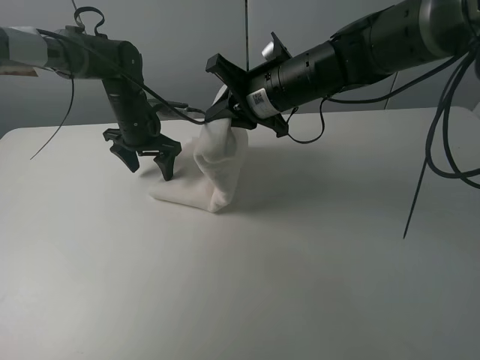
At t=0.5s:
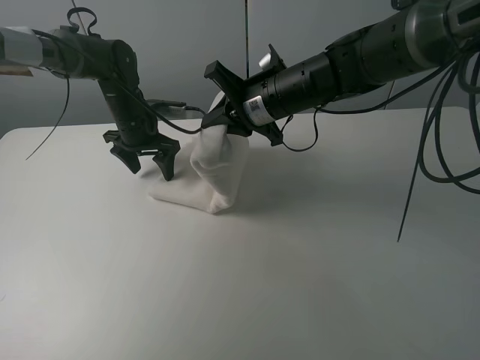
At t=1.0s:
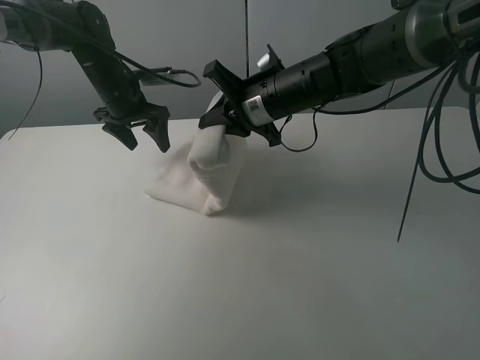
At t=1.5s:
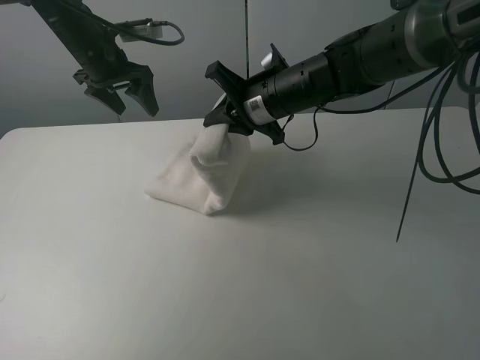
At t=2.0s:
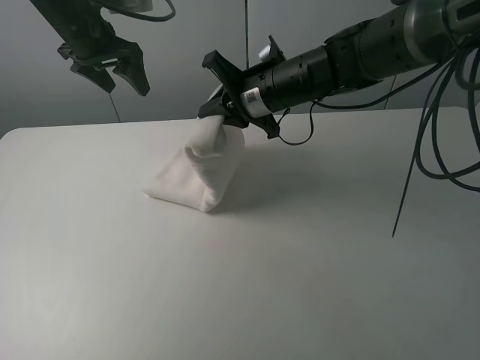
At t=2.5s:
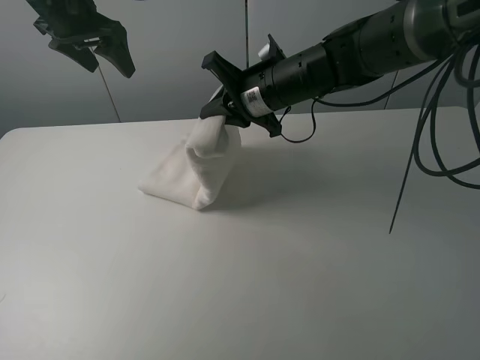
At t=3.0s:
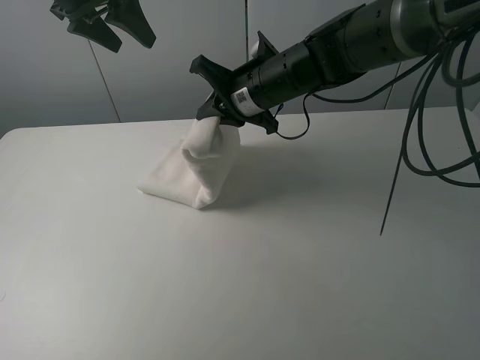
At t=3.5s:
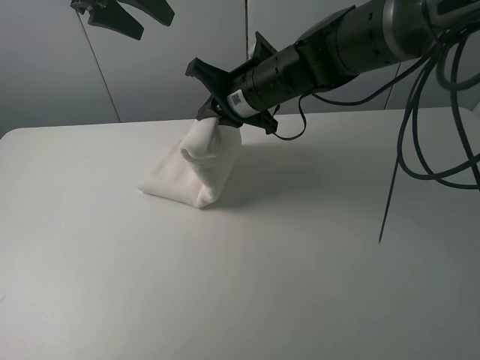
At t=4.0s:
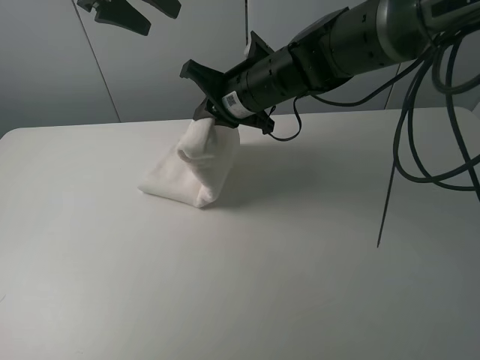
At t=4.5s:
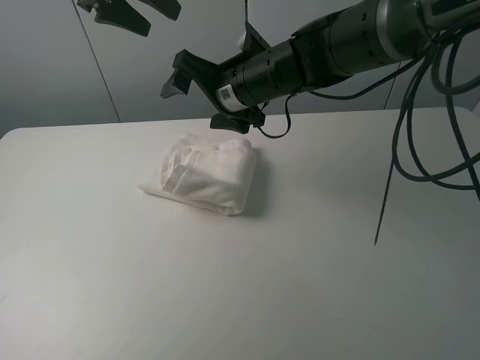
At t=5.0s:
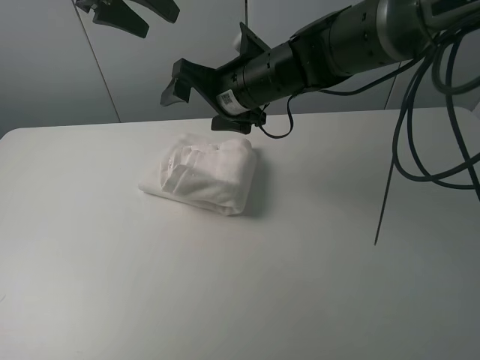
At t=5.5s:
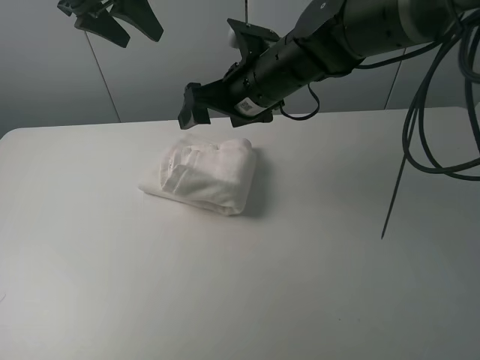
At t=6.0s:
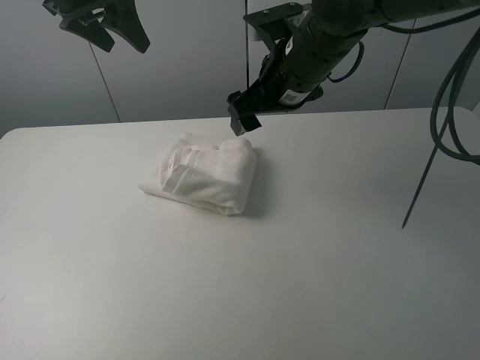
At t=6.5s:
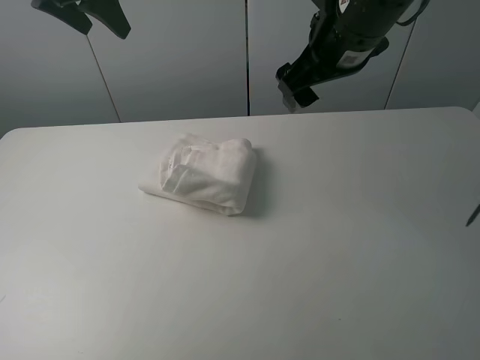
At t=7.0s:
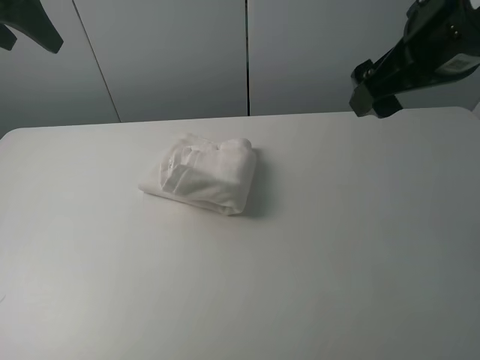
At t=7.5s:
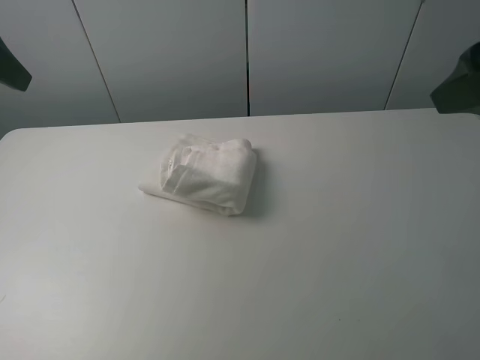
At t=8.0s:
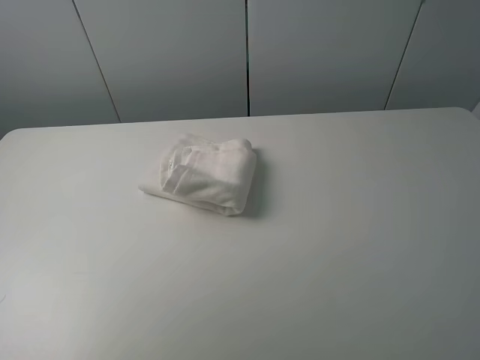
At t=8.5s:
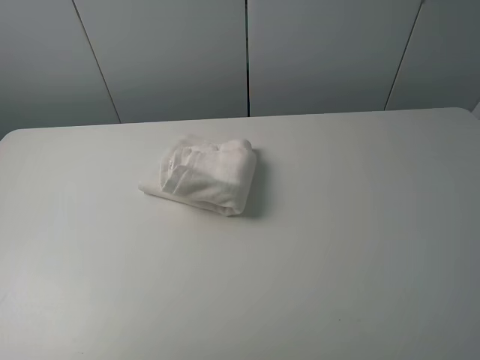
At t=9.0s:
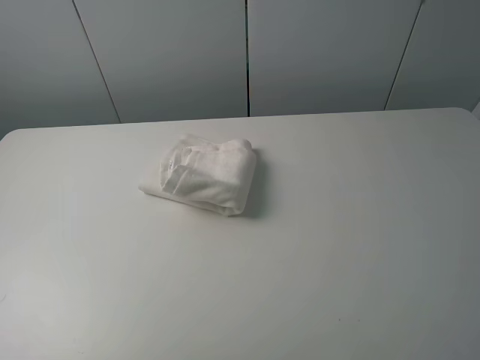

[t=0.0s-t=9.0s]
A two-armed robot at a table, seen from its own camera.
Task of the whole recording: fold the towels on the table.
Step, t=0.0s to t=4.5s: Fold the white towel from right to left with right gripper.
t=0.0s to t=2.0s: The left gripper goes approximately 15 cm upward.
t=2.0s to t=4.5s: The left gripper shifts roughly 10 cm upward. Meanwhile the right gripper opens.
t=4.5s to t=7.0s: The right gripper moves to the right, backward and upward, roughly 25 cm. Meanwhile the left gripper shifts roughly 15 cm to the left and backward.
t=7.0s to t=9.0s: The right gripper goes approximately 25 cm backward and to the right. Meanwhile the left gripper moves backward, roughly 30 cm.

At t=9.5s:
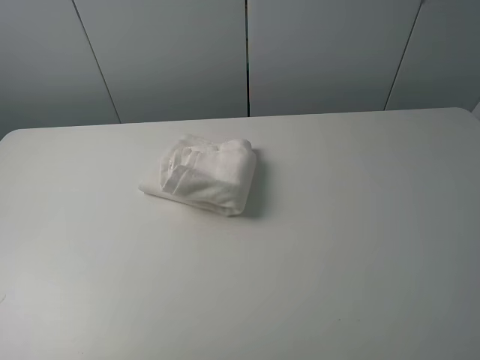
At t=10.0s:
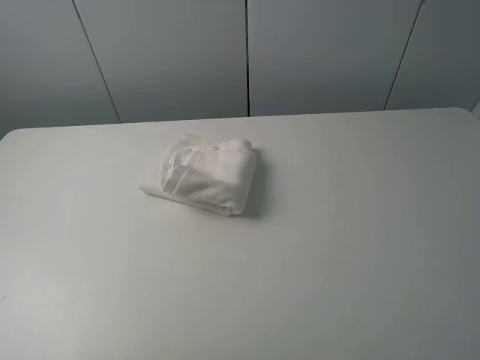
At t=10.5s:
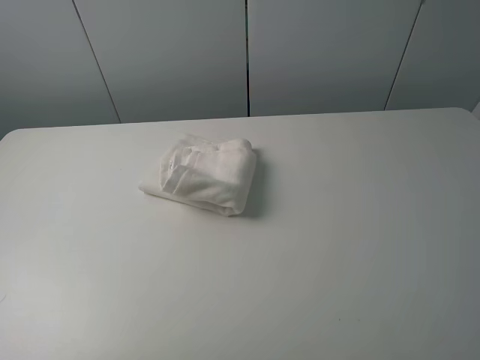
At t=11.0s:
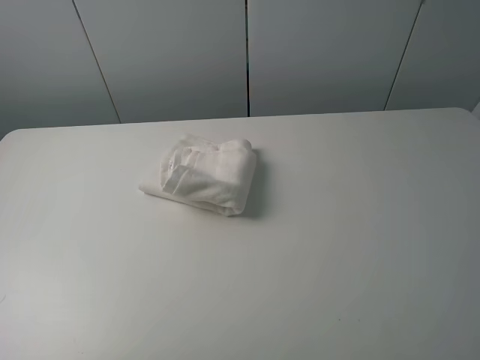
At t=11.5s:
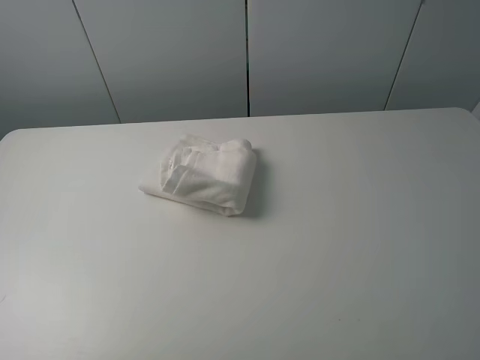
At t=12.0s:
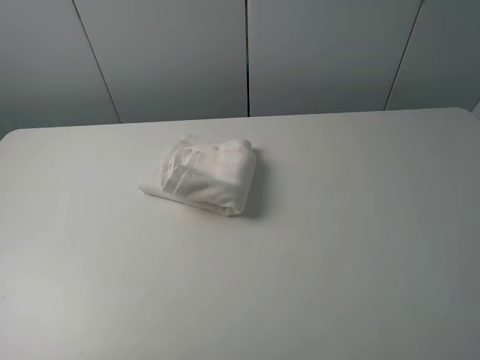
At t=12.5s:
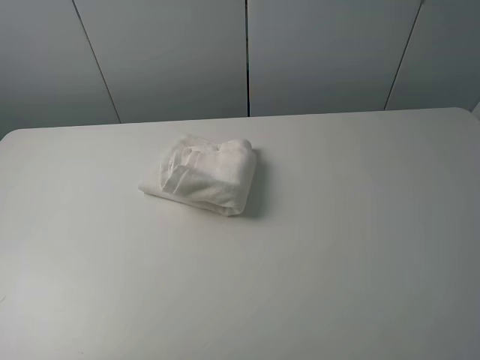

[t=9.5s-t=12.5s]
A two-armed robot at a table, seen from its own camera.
Task of the whole recording: fold the towels on the table.
t=11.0s to t=12.5s: Both grippers stay put.
